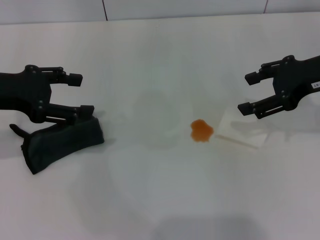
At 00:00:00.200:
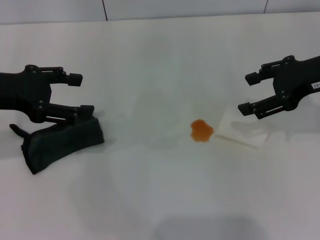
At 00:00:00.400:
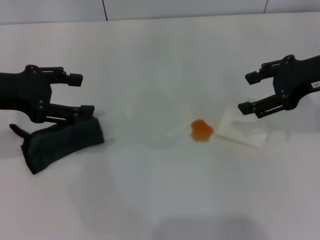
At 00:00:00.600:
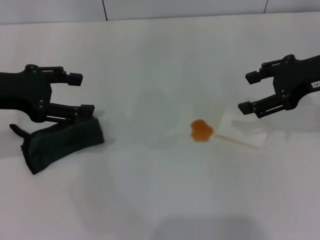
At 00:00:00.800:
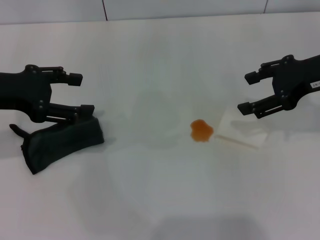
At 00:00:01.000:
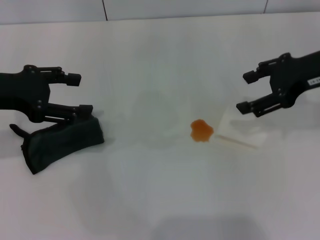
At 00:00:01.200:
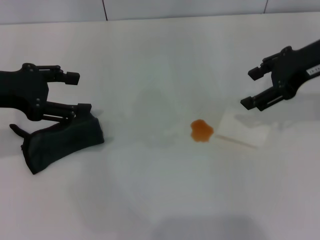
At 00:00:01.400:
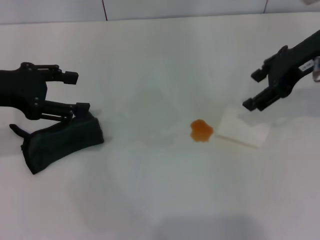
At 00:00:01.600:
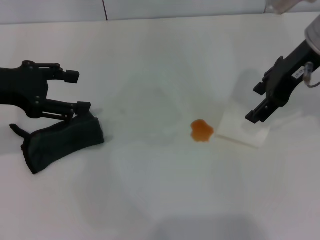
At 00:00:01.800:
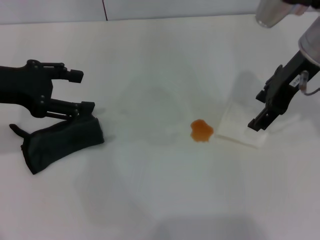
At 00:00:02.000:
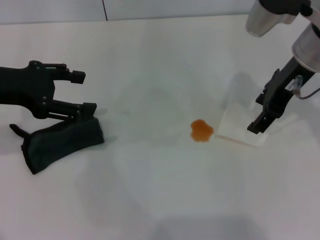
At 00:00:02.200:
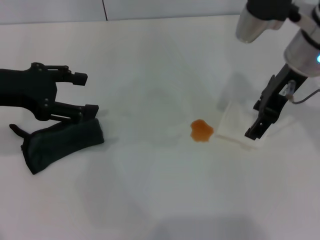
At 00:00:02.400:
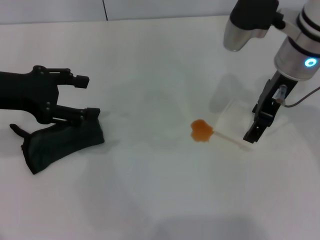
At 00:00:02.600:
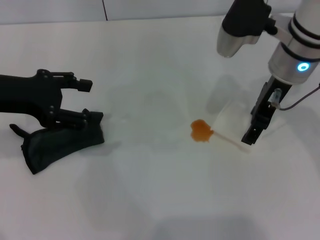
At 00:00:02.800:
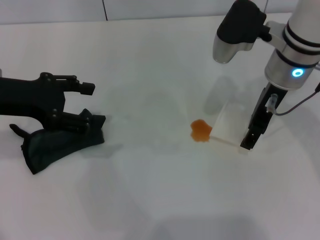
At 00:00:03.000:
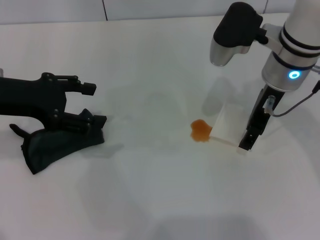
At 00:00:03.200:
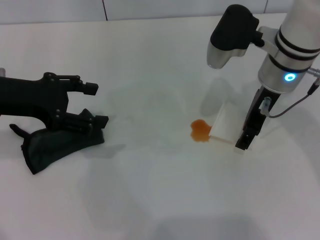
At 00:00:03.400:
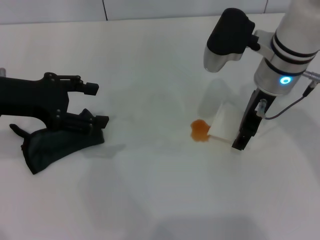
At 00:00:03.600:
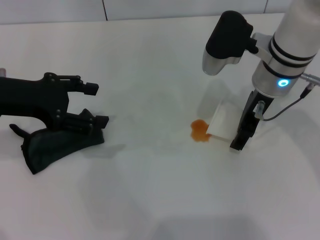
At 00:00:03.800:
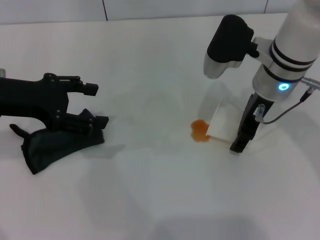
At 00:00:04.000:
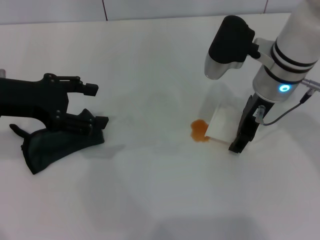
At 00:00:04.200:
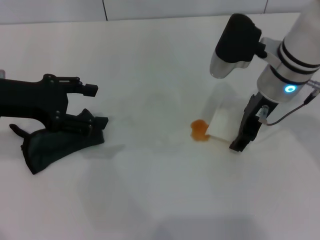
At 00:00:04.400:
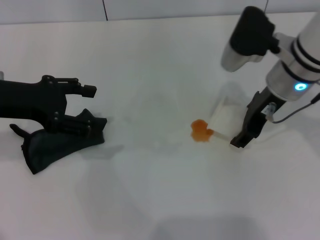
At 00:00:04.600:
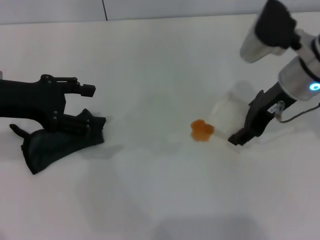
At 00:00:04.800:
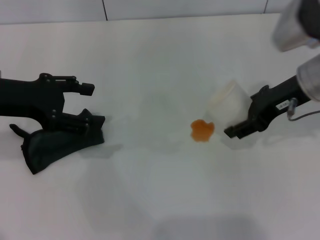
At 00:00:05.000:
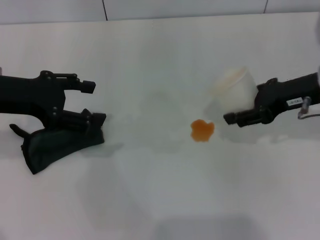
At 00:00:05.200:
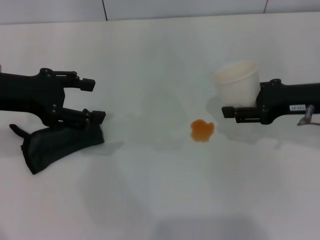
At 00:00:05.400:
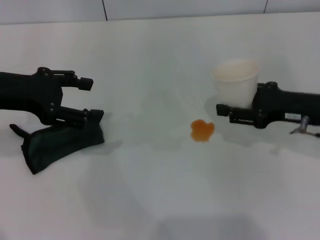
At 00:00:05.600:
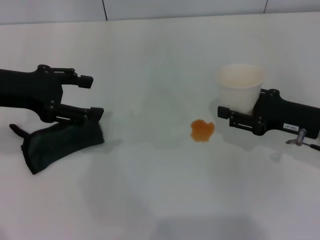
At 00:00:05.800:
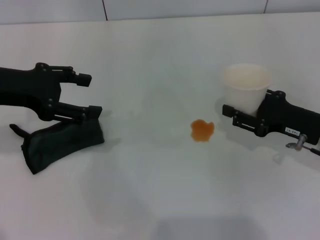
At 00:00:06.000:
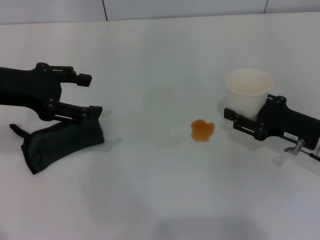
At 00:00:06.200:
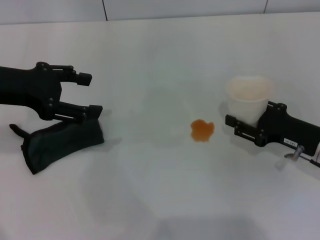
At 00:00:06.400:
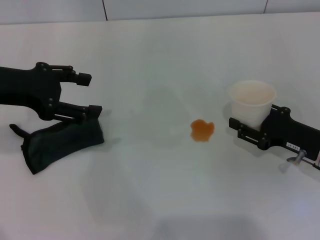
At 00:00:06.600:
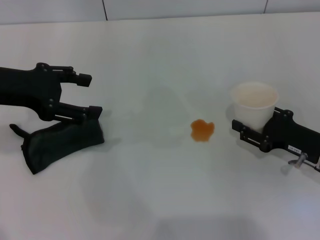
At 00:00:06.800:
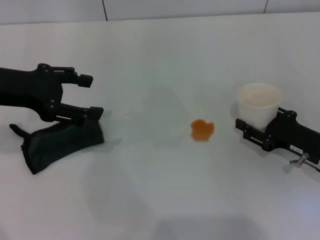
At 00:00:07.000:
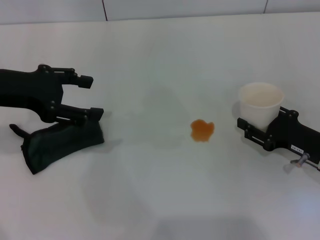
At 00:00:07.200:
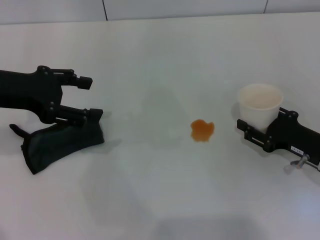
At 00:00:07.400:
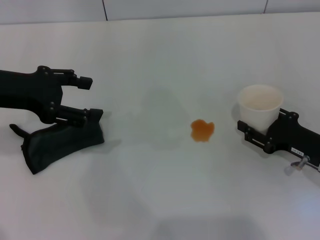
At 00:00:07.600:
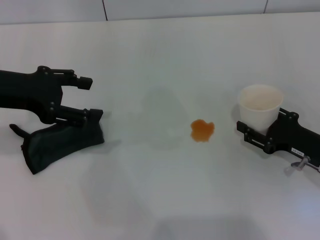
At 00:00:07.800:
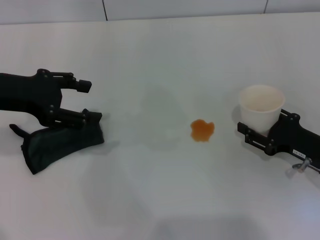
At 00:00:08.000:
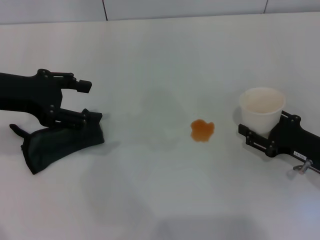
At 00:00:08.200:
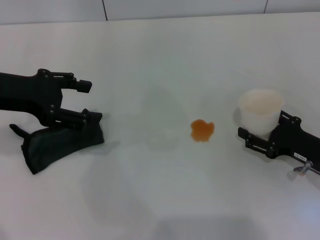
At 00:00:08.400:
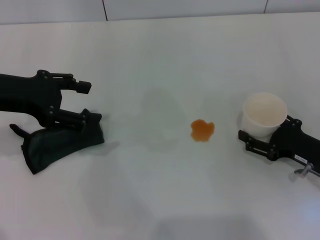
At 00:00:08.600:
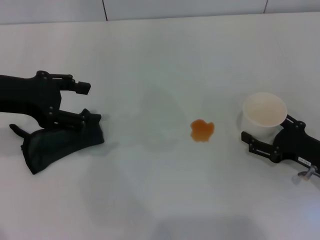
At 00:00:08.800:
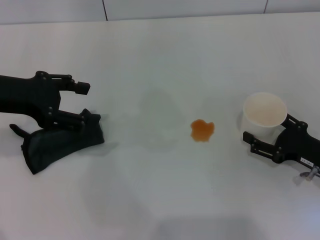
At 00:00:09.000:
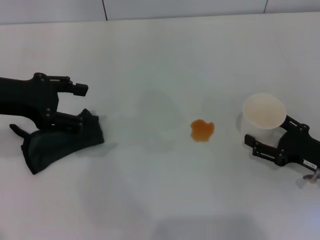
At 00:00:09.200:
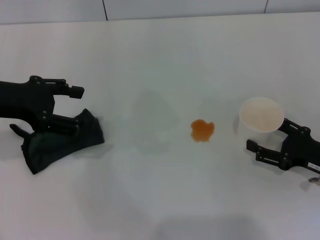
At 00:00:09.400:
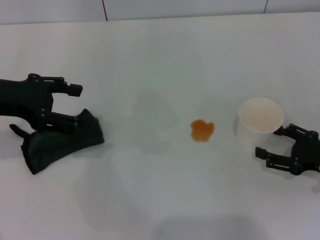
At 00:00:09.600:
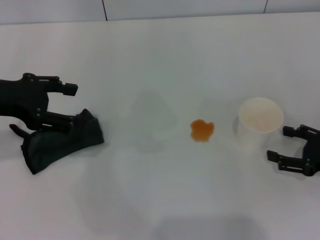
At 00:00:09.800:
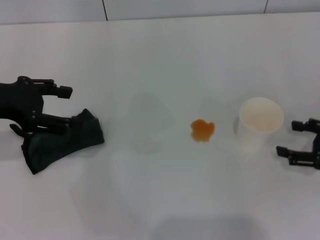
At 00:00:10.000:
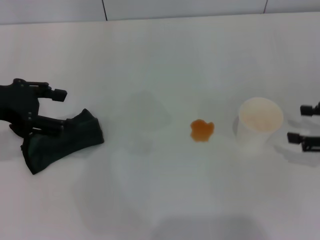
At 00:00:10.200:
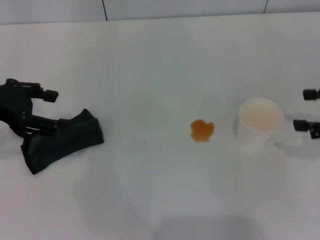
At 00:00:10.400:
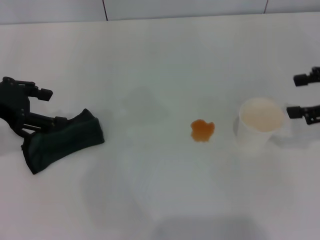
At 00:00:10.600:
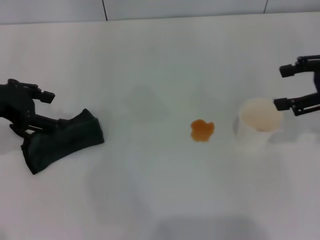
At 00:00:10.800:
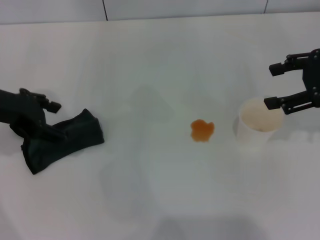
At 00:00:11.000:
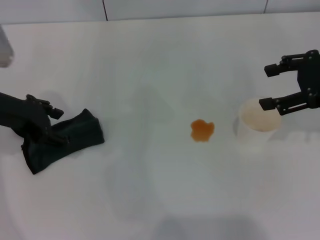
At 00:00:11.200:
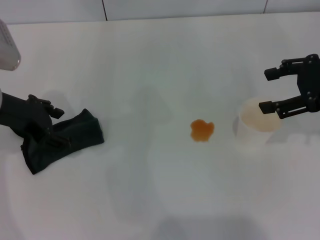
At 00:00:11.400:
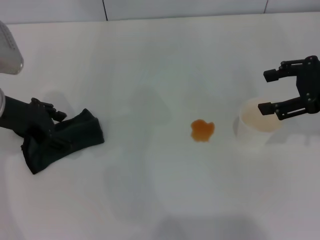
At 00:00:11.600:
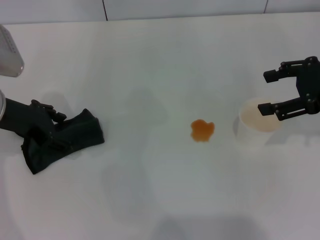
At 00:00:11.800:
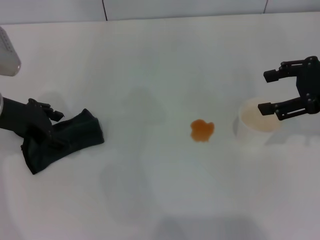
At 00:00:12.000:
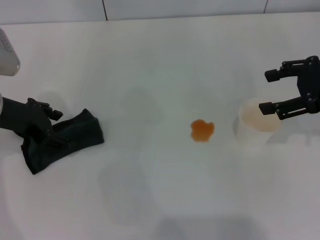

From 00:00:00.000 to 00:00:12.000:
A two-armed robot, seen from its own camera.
Step, from 00:00:00.000 to 00:00:04.000: Grasp the paper cup with the right gripper.
Step, from 00:00:04.200 to 00:00:09.400: Stand the paper cup upright with the right gripper.
From 00:00:00.000 to 00:00:01.600: The right gripper goes about 5 cm to the left.
From 00:00:01.600 to 00:00:03.000: The right gripper is displaced downward and to the left by approximately 10 cm.
From 00:00:03.000 to 00:00:04.400: The right gripper closes its fingers.
From 00:00:04.400 to 00:00:06.000: The right gripper is displaced downward, to the right and backward by about 20 cm, and closes up.
From 00:00:06.000 to 00:00:07.600: The grippers make only small movements.
From 00:00:07.600 to 00:00:09.000: The right gripper opens.
From 00:00:09.000 to 00:00:10.400: The right gripper is displaced upward by approximately 20 cm.
From 00:00:10.400 to 00:00:12.000: The left gripper heads downward, covering about 5 cm.

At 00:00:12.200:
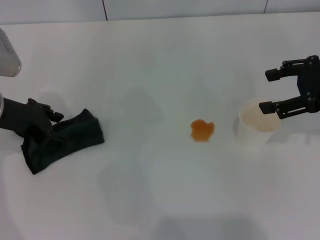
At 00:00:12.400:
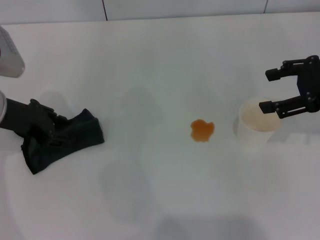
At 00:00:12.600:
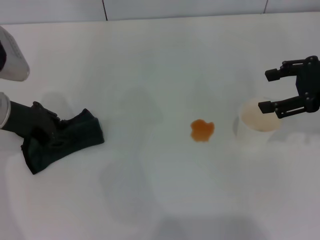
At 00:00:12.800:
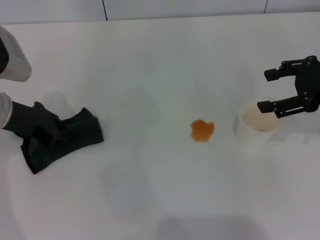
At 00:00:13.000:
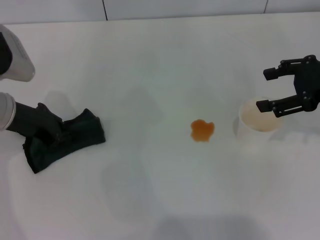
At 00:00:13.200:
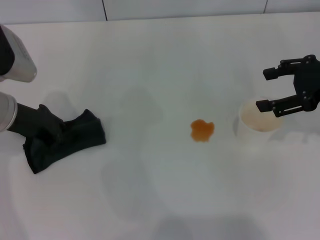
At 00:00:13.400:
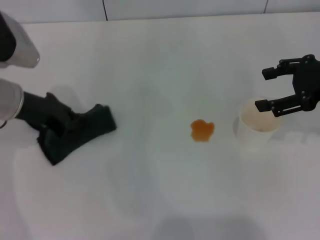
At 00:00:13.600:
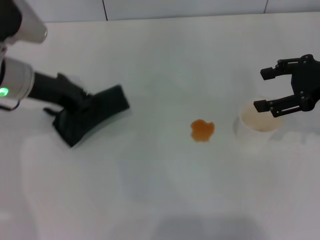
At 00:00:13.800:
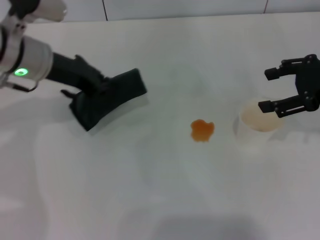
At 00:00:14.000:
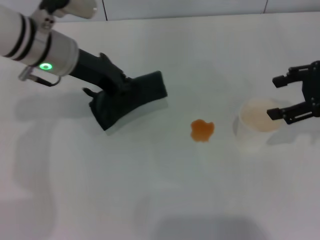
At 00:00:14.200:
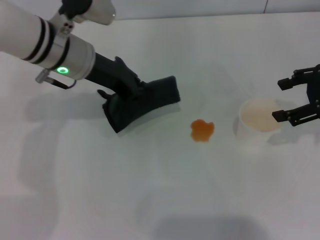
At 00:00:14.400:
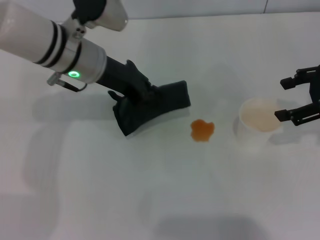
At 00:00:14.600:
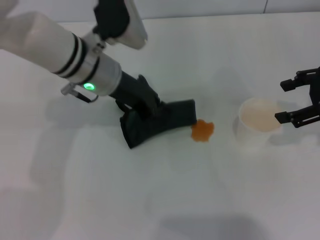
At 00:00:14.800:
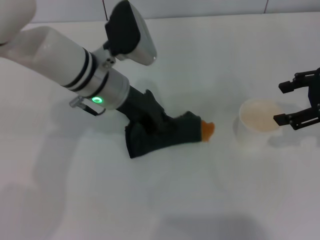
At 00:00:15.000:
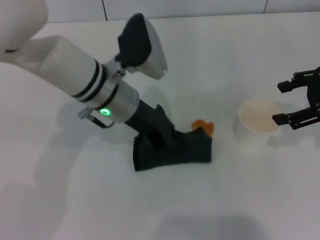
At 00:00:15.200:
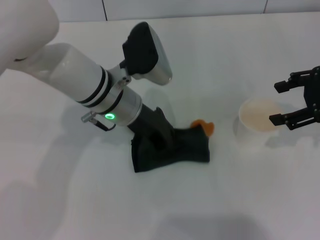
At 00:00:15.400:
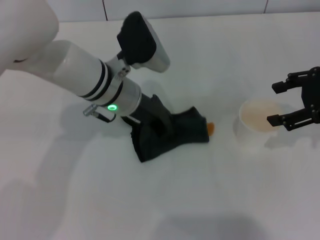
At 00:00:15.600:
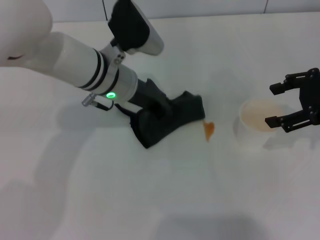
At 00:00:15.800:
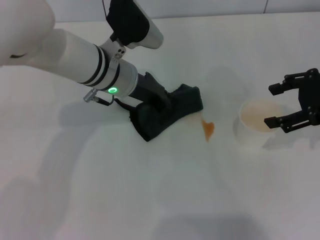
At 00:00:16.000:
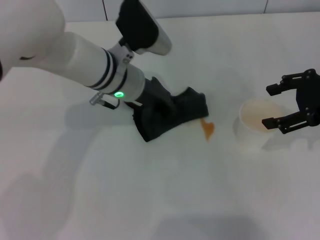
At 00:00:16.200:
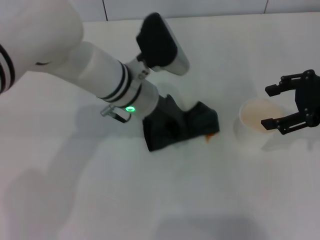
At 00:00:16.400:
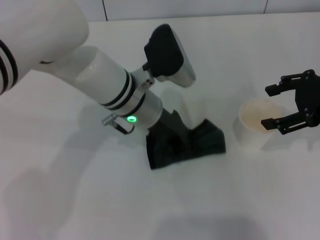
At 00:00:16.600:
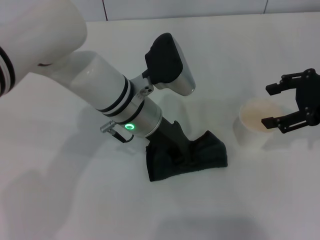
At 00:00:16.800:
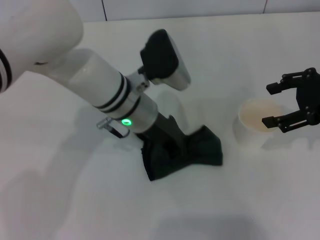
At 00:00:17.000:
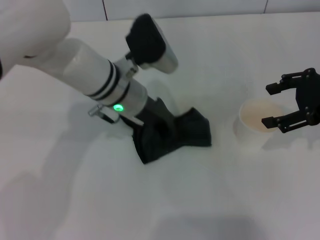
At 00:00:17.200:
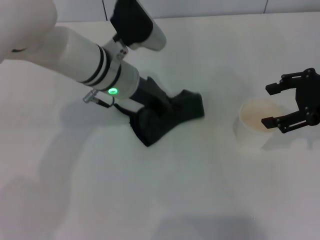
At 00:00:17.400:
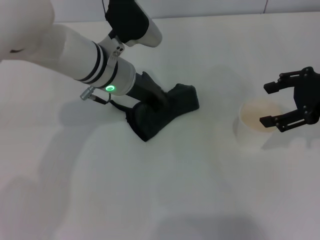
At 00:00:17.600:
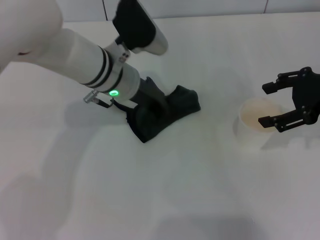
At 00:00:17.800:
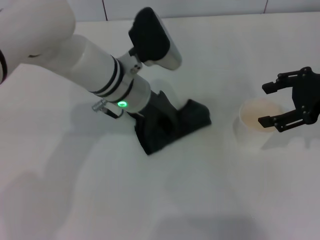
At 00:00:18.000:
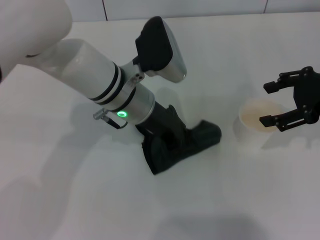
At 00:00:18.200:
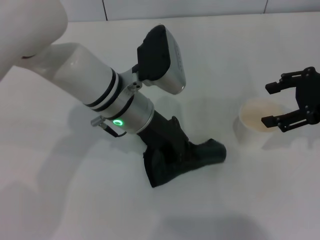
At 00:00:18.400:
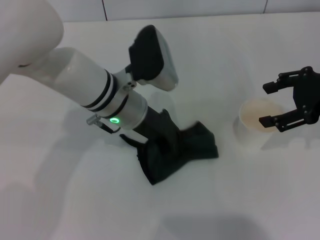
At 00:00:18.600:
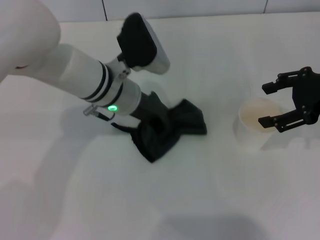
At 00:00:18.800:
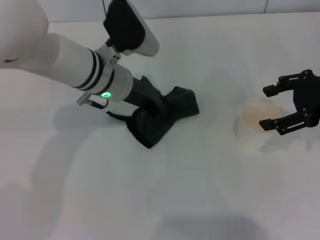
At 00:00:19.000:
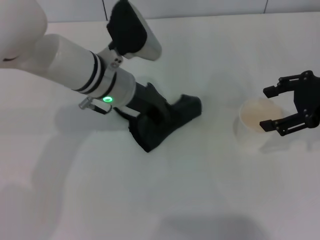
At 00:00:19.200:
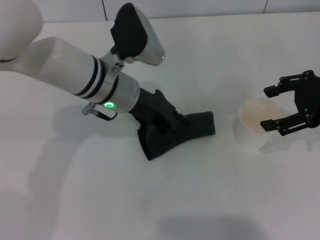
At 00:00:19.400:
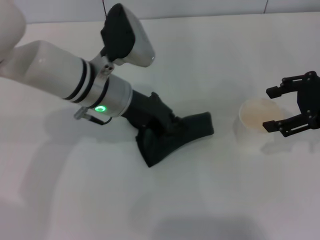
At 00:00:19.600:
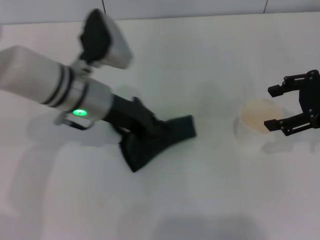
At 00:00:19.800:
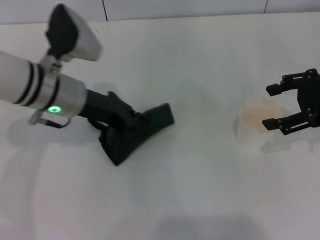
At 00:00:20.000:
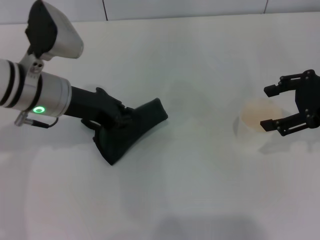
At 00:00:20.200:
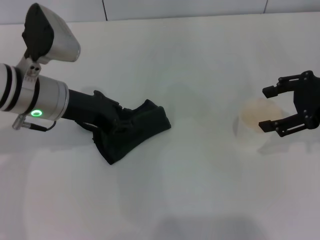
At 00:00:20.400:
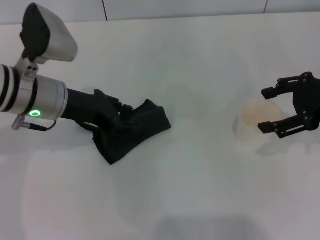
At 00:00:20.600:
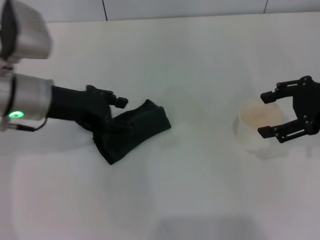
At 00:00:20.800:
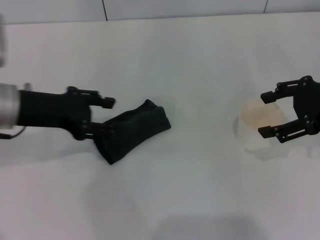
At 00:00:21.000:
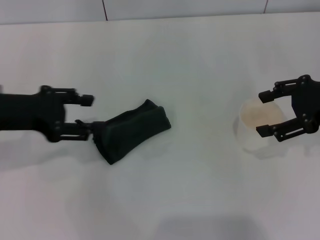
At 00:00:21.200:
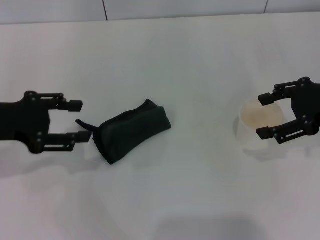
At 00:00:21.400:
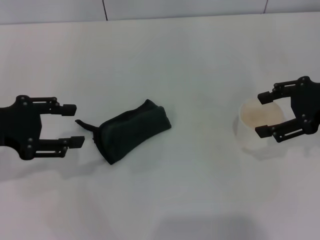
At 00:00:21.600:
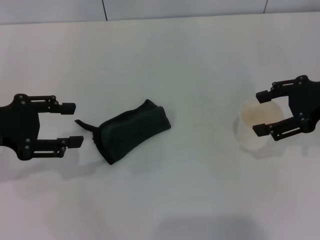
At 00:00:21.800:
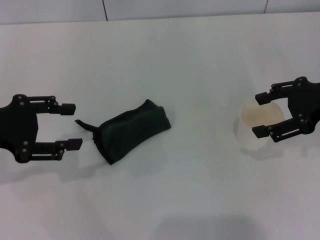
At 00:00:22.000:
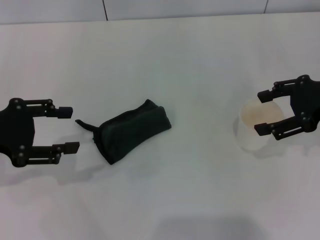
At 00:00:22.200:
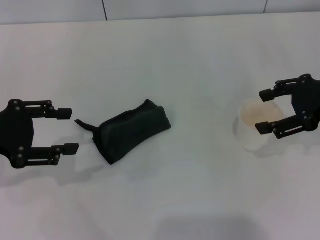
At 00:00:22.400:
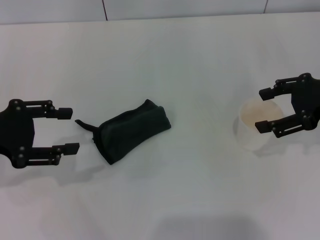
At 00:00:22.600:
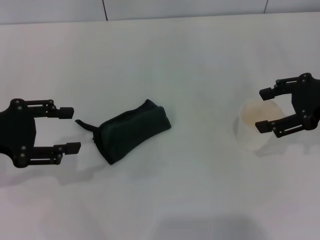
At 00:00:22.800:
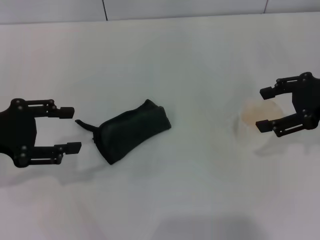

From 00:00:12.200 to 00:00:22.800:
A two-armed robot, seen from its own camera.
Step, from 00:00:13.200 to 00:00:19.600: Wipe the stains off the table with the left gripper.
Step, from 00:00:19.800 to 00:00:20.600: Place the rag on the table with the left gripper.
From 00:00:12.200 to 00:00:13.800: The left gripper travels to the right and forward by roughly 10 cm, and closes its fingers.
From 00:00:13.800 to 00:00:15.200: The left gripper goes some 10 cm to the right and downward.
From 00:00:15.200 to 00:00:18.200: The grippers move only a little.
From 00:00:18.200 to 00:00:19.800: The left gripper goes approximately 10 cm to the left.
From 00:00:19.800 to 00:00:21.200: The left gripper goes some 15 cm to the left and backward, and opens up.
From 00:00:21.200 to 00:00:22.800: The grippers make only small movements.
